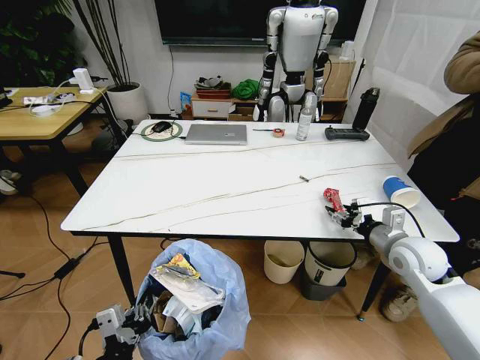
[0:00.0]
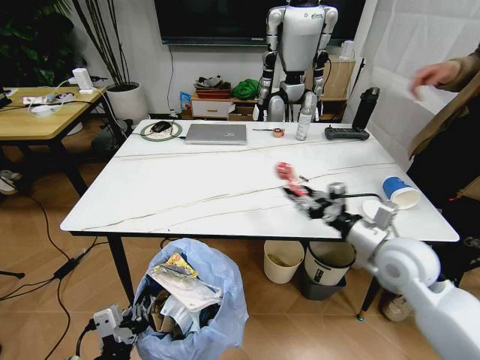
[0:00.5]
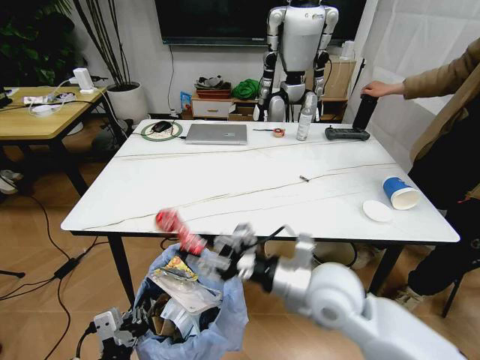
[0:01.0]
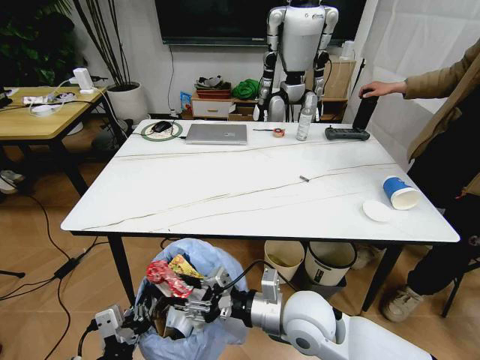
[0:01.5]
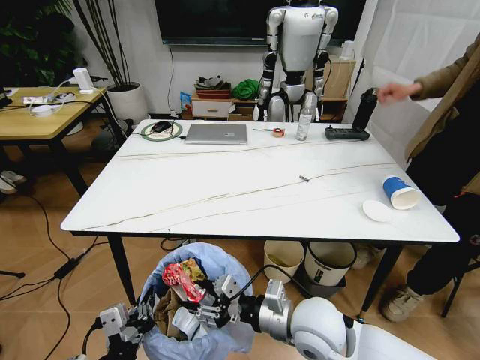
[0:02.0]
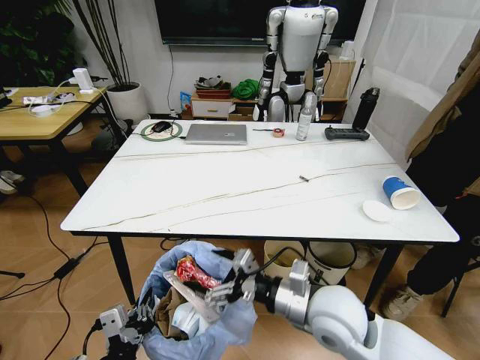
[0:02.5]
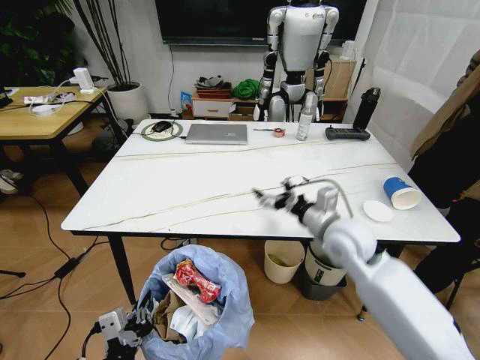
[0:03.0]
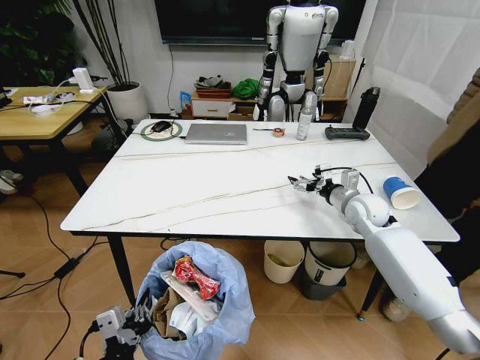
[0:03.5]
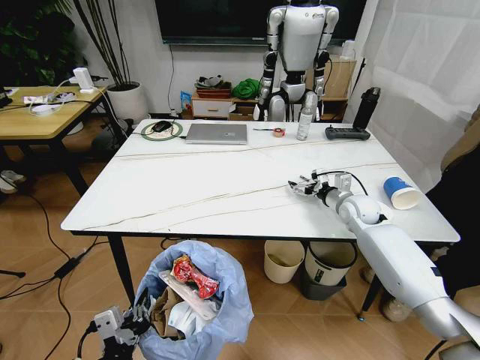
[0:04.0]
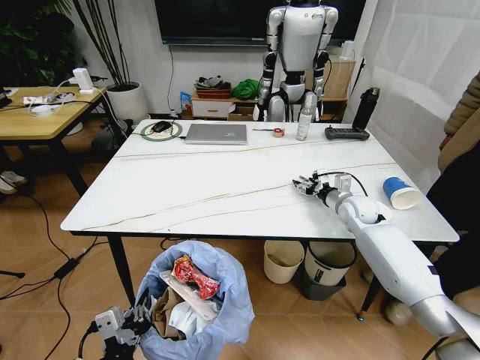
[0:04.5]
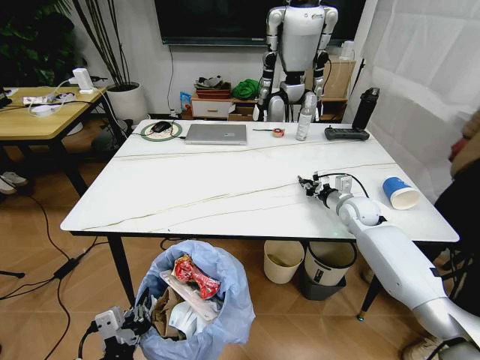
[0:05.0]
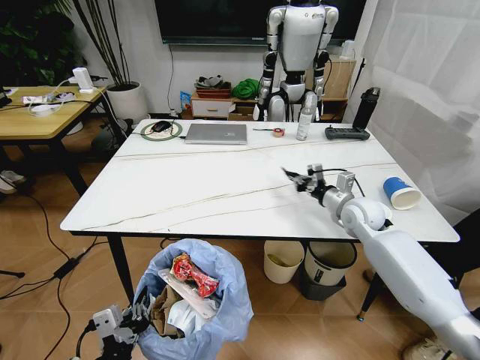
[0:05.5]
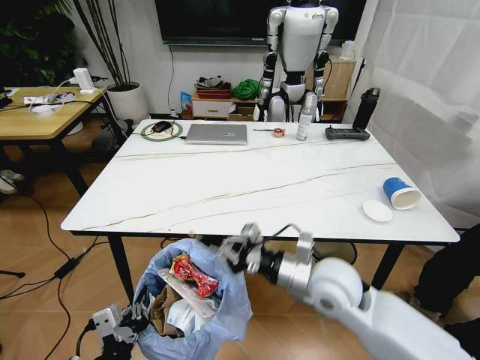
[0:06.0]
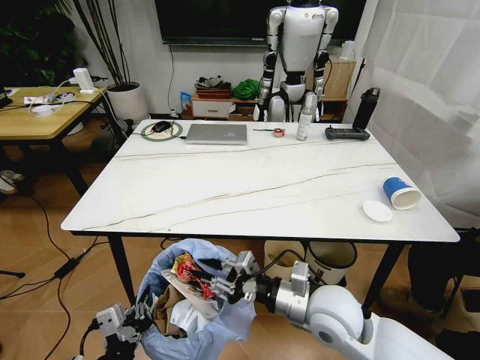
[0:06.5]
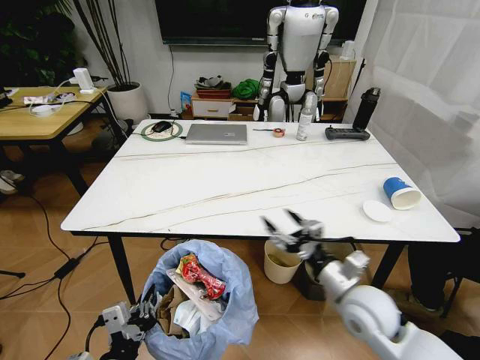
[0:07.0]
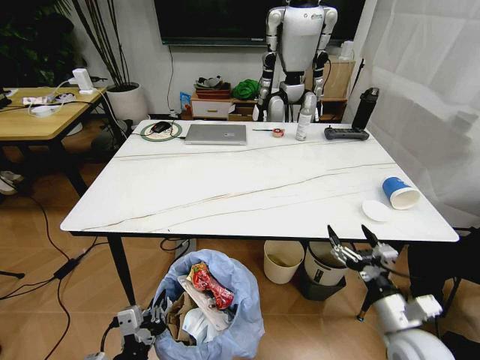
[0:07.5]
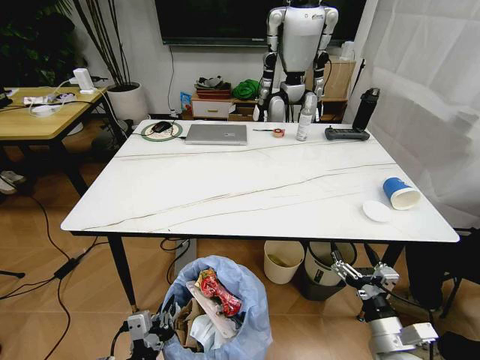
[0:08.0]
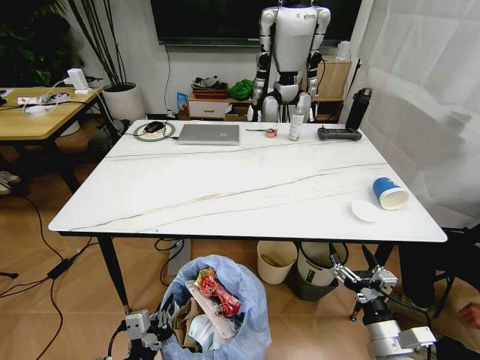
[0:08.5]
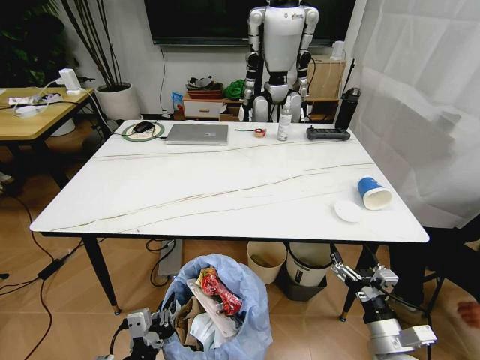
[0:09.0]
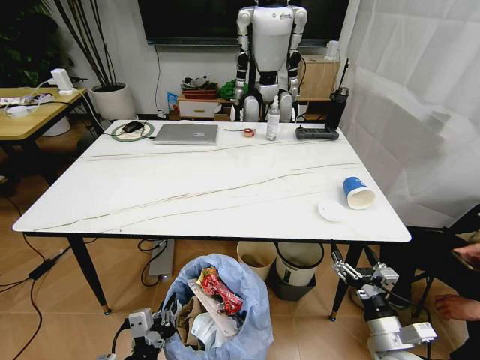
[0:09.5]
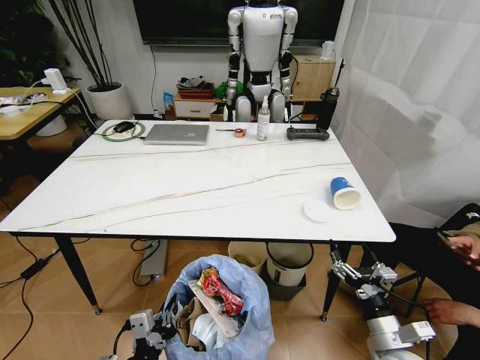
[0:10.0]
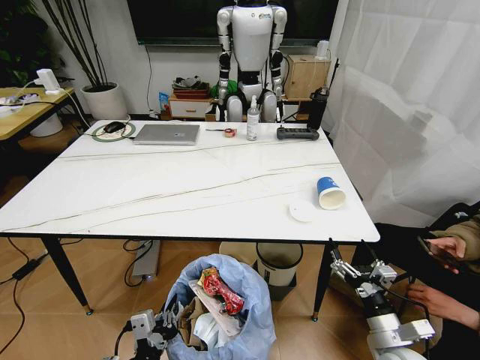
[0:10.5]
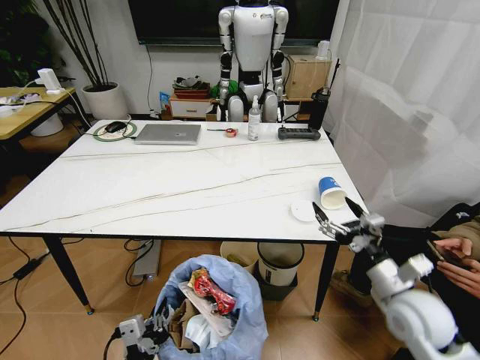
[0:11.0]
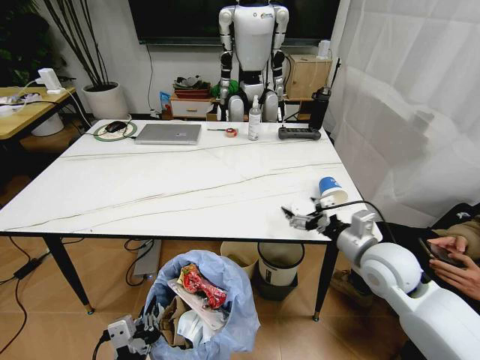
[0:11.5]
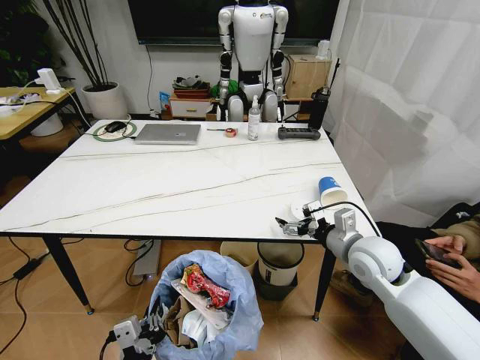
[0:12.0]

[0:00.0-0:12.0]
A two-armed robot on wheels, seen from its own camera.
Task of the whole recording: Pick up the trash bin and place the trash from the table into it.
0.0 to 2.0 s: The right gripper shifts about 25 cm to the left and backward.
2.0 to 4.0 s: The right gripper heads forward and to the right, covering some 35 cm, and opens up.
4.0 to 6.0 s: The right gripper shifts some 30 cm backward and to the left, and closes.
6.0 to 8.0 s: The right gripper goes some 25 cm to the right, backward and downward, and opens up. Meanwhile the left gripper heads downward, covering roughly 5 cm.
10.0 to 12.0 s: The right gripper goes approximately 20 cm forward and upward.

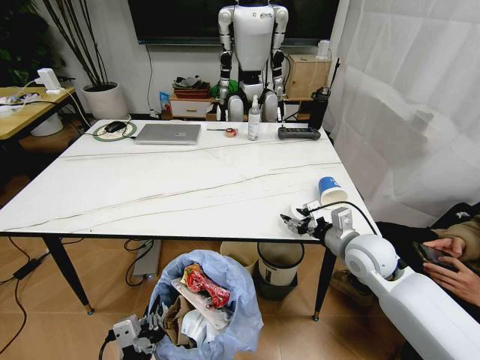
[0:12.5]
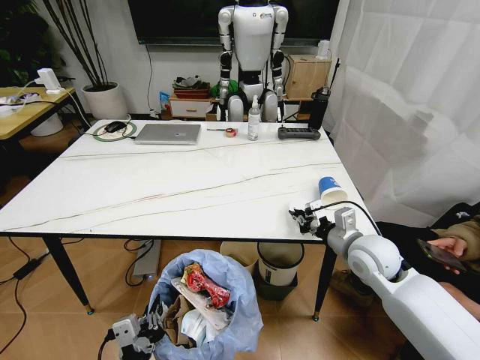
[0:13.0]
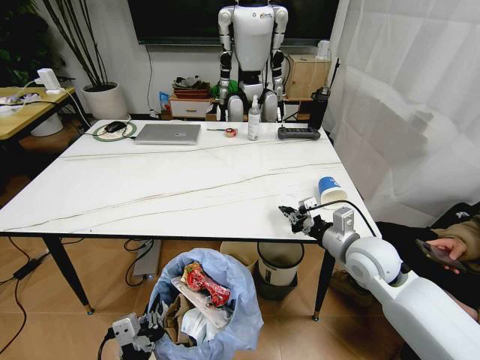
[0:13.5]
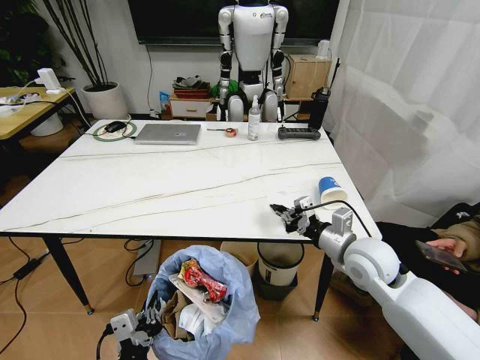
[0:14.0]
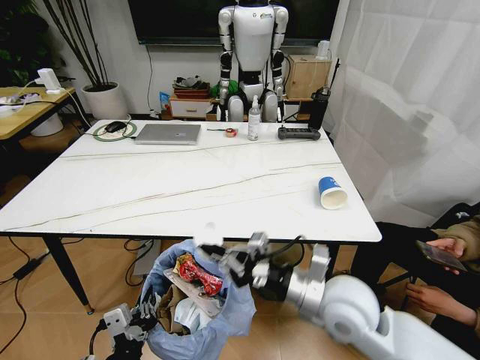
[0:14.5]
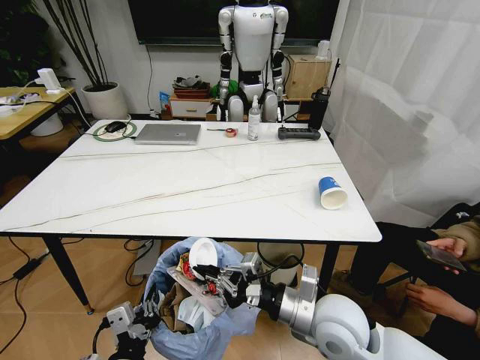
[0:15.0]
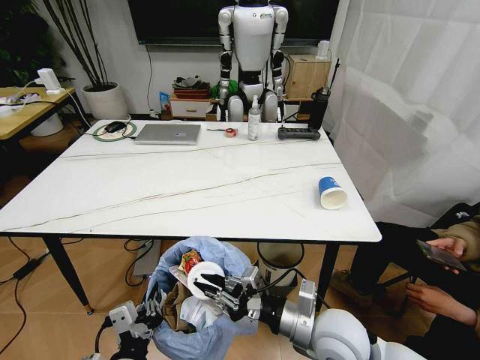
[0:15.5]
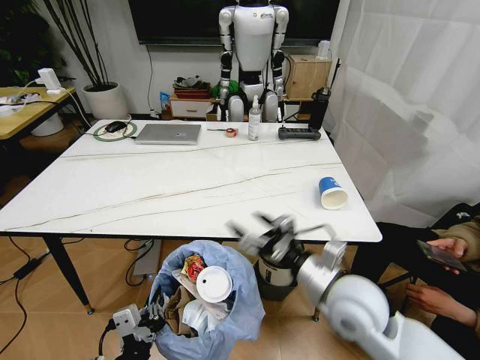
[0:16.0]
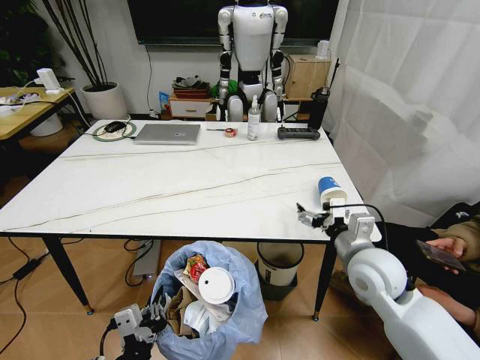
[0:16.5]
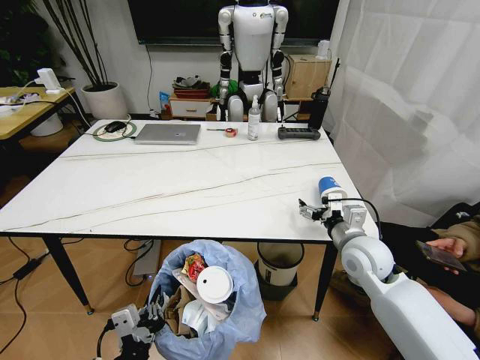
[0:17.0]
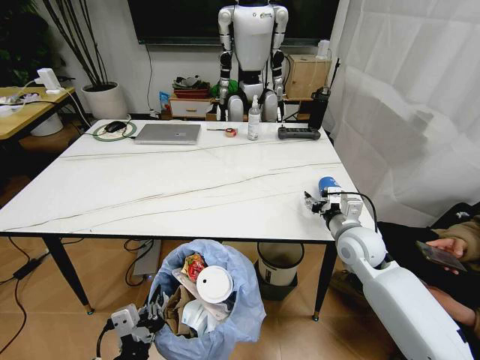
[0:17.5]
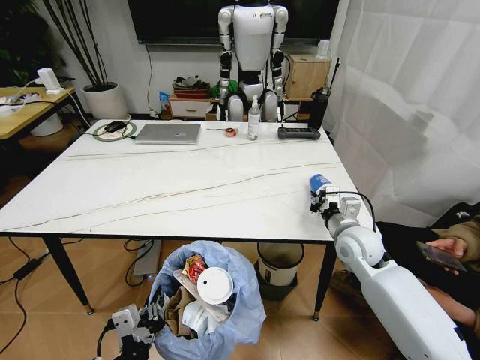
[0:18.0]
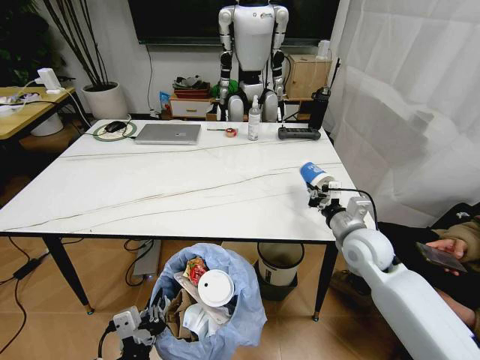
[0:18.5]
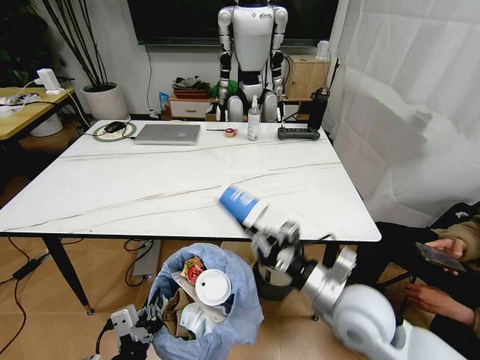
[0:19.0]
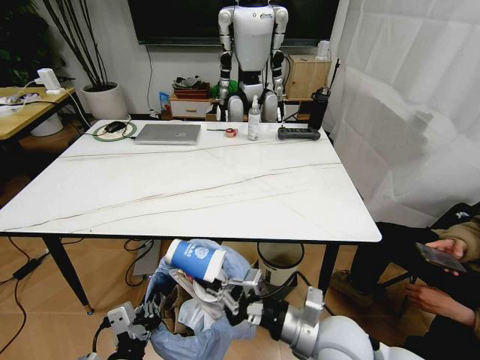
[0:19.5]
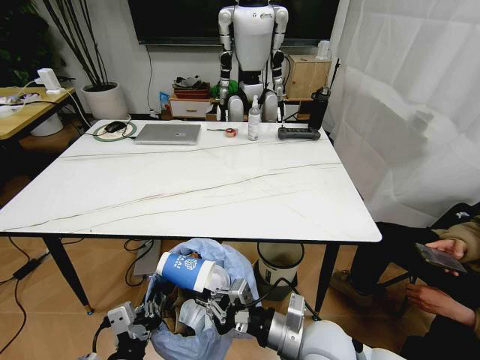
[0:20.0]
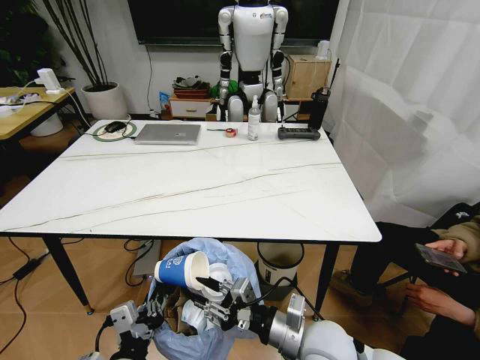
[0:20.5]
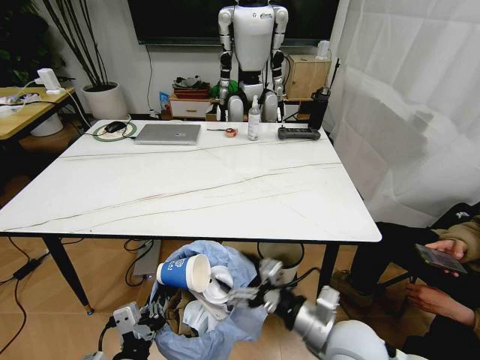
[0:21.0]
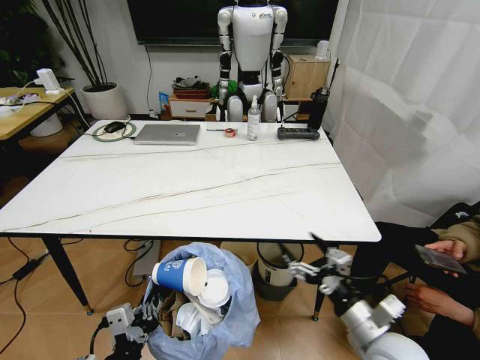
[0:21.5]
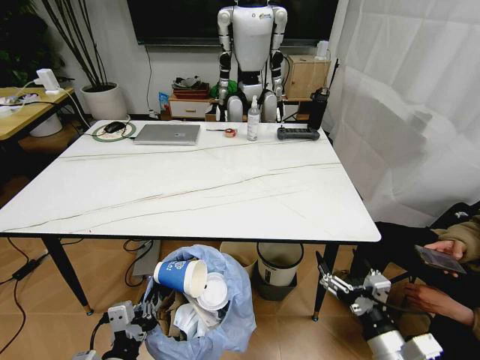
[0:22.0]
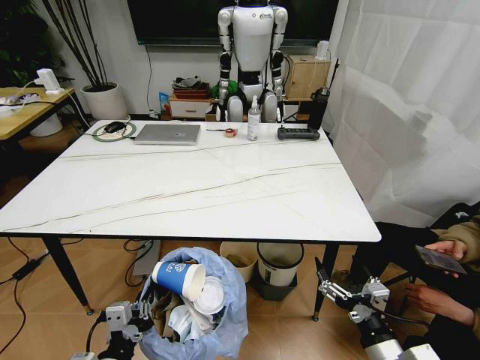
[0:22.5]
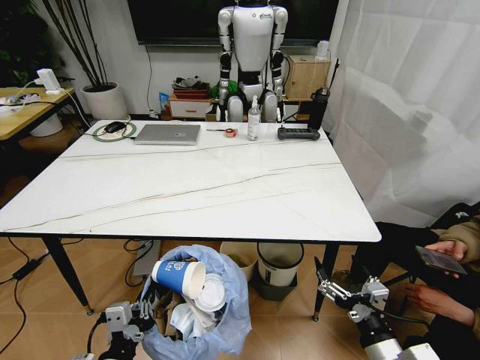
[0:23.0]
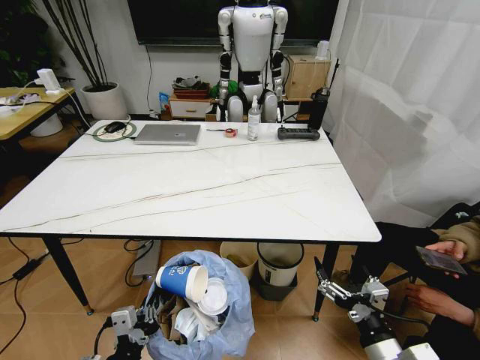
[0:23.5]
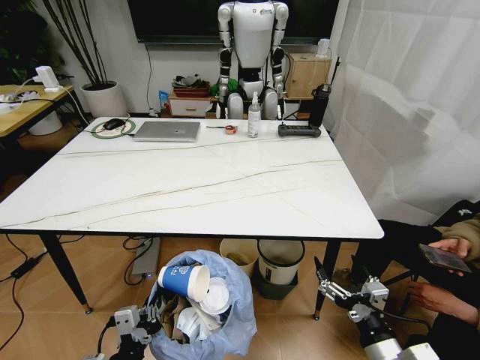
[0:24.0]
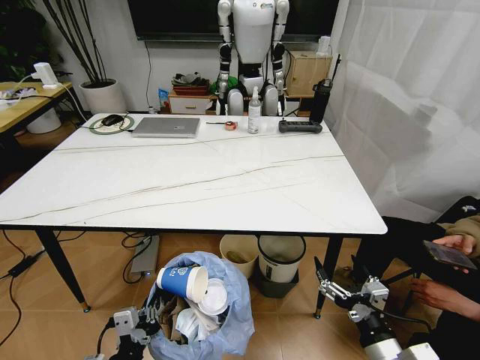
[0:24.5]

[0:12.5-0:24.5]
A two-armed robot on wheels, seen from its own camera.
Task of the whole recording: Pick up the trash bin and place the trash from the table into it.
12.5 to 14.5 s: The right gripper is displaced backward and to the left by about 15 cm, and closes its fingers.
14.5 to 16.5 s: The right gripper shifts approximately 10 cm to the right and forward, and opens its fingers.
16.5 to 18.5 s: The right gripper goes some 5 cm forward, and closes its fingers.
18.5 to 20.5 s: The right gripper moves backward and to the left, about 20 cm, and opens up.
20.5 to 22.5 s: The right gripper is displaced to the right and backward by roughly 15 cm, and opens up.

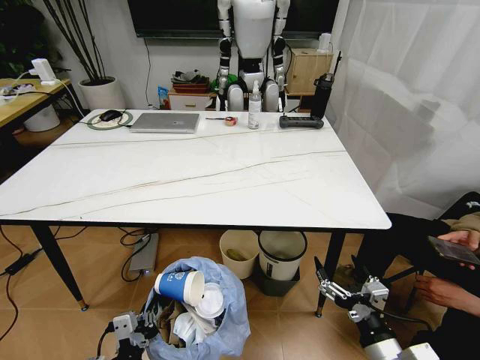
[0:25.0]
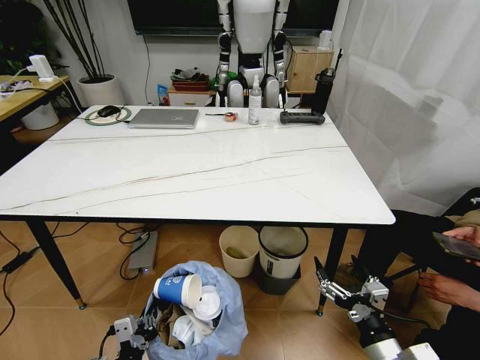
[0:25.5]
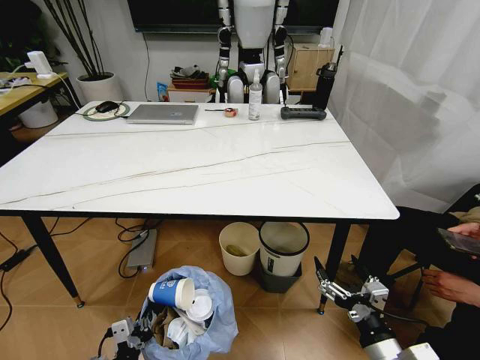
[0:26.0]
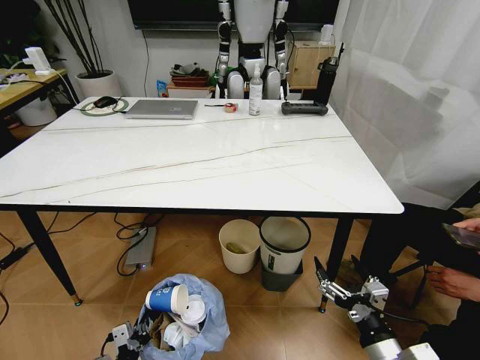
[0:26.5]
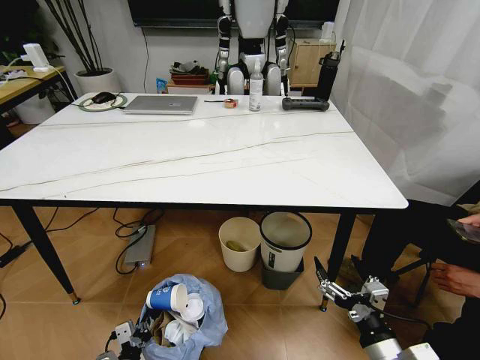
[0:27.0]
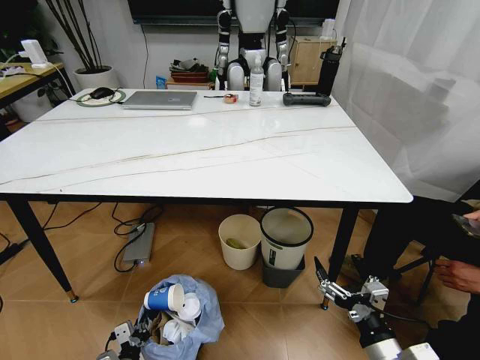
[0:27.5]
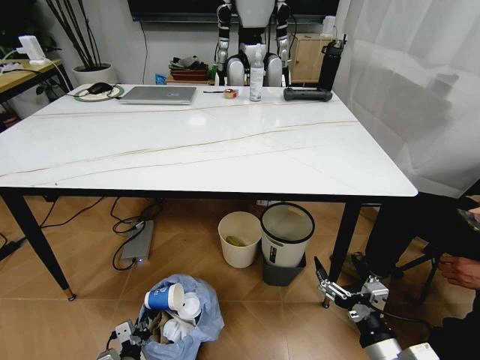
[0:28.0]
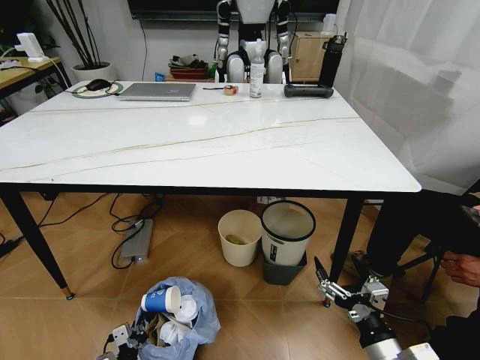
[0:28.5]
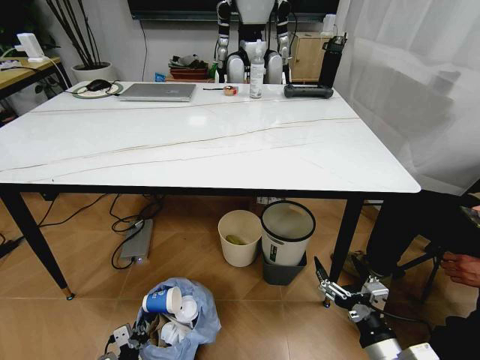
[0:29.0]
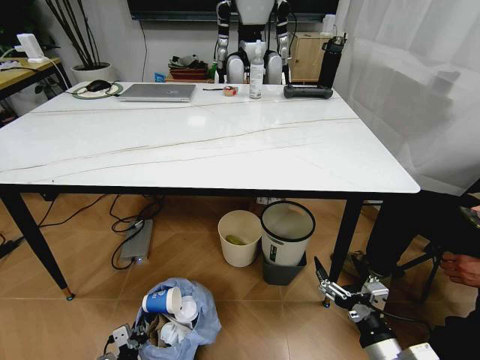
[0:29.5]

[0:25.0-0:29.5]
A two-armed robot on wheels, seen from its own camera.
Task of the whole recording: Pick up the trash bin and place the trash from the table into it.
25.0 to 27.0 s: The left gripper heads downward, covering about 15 cm.
